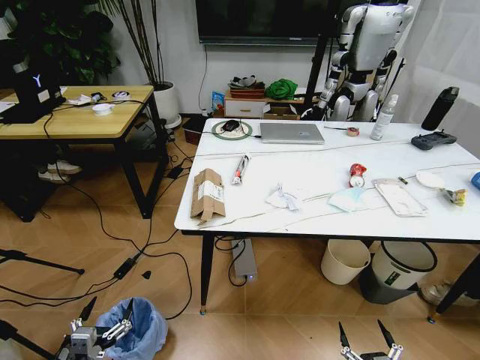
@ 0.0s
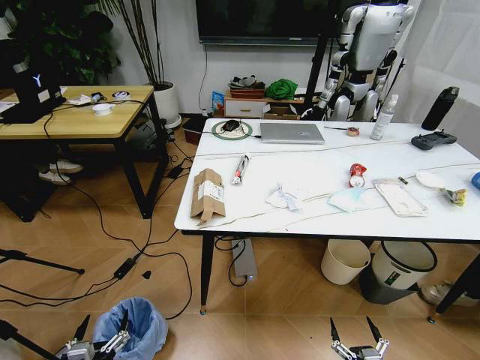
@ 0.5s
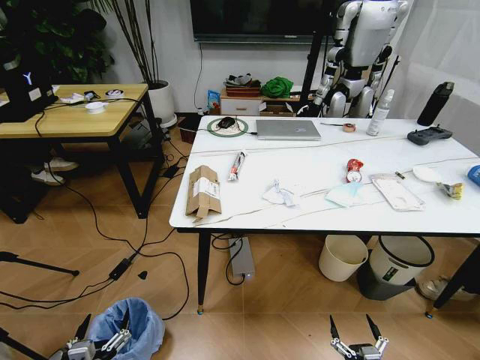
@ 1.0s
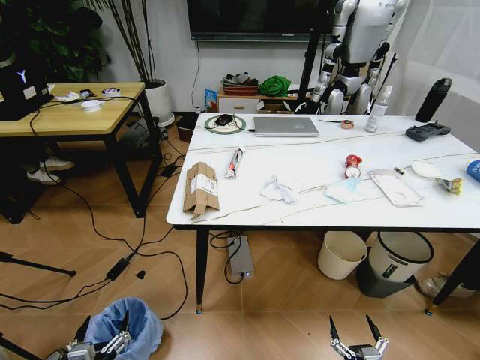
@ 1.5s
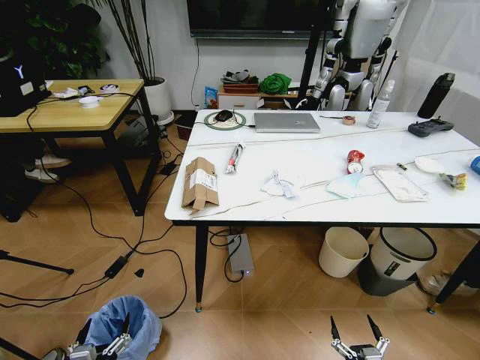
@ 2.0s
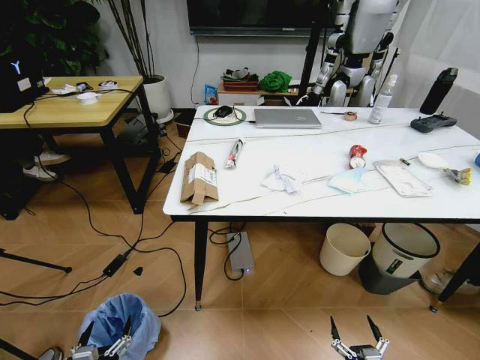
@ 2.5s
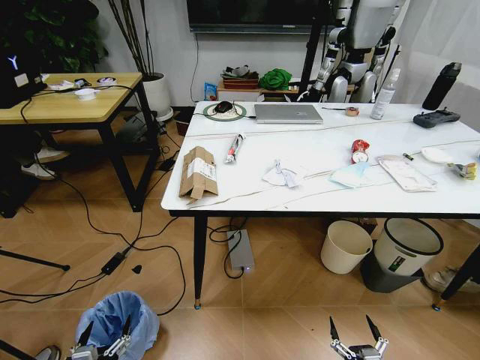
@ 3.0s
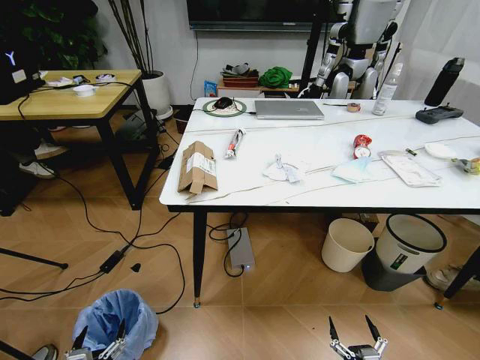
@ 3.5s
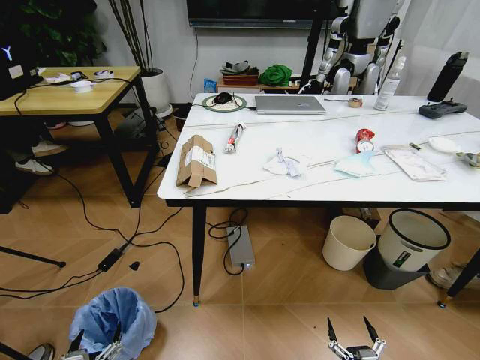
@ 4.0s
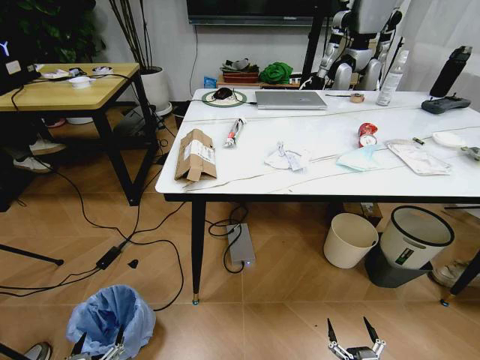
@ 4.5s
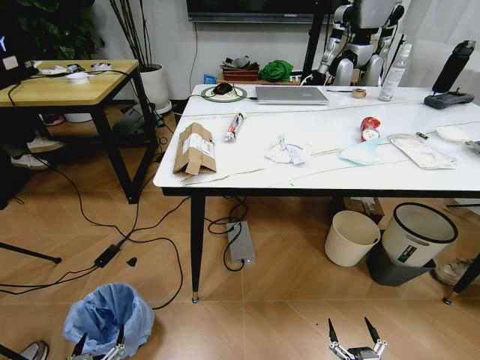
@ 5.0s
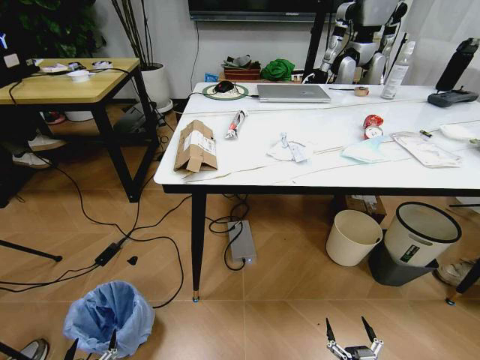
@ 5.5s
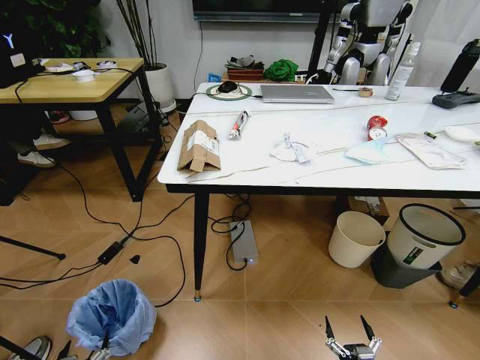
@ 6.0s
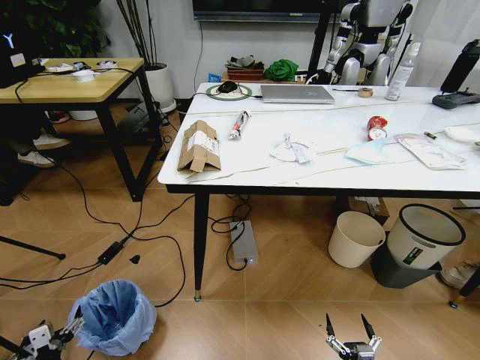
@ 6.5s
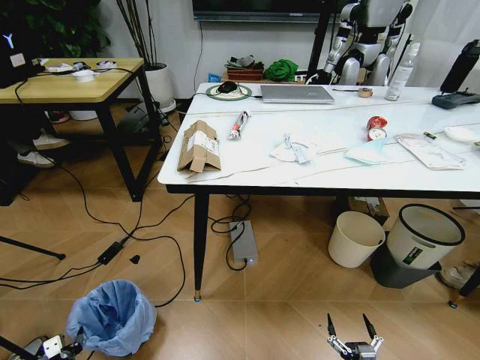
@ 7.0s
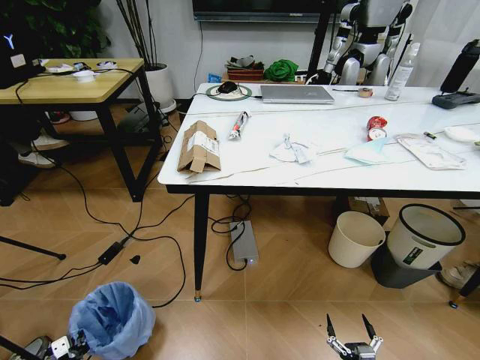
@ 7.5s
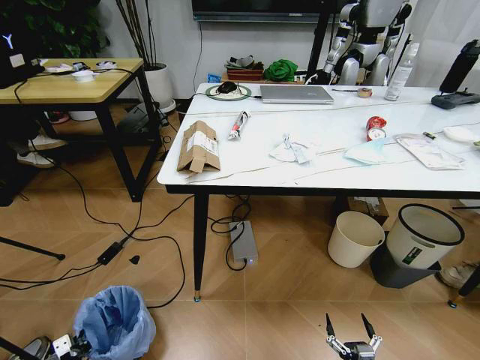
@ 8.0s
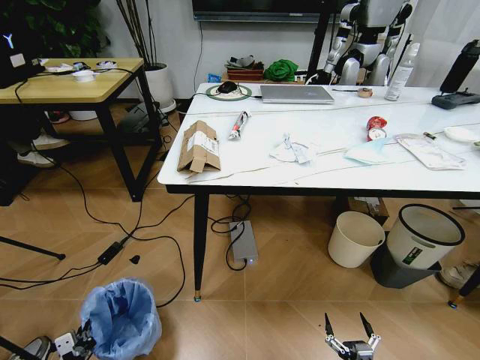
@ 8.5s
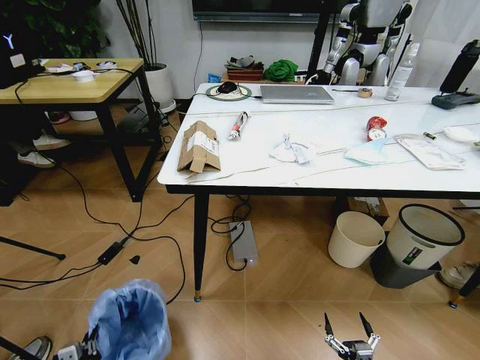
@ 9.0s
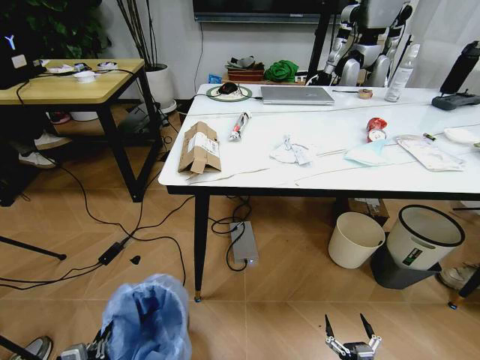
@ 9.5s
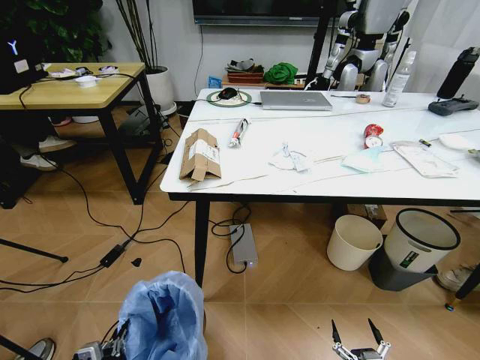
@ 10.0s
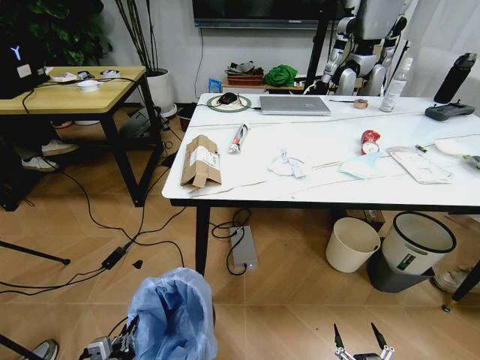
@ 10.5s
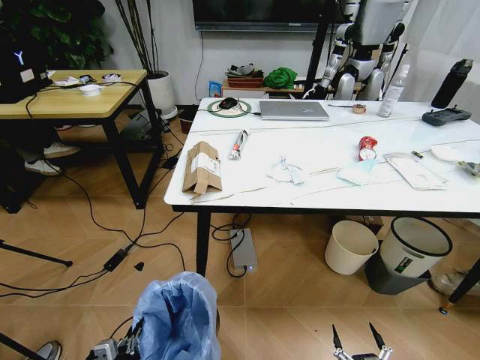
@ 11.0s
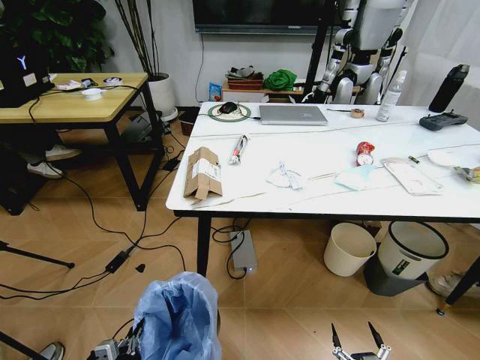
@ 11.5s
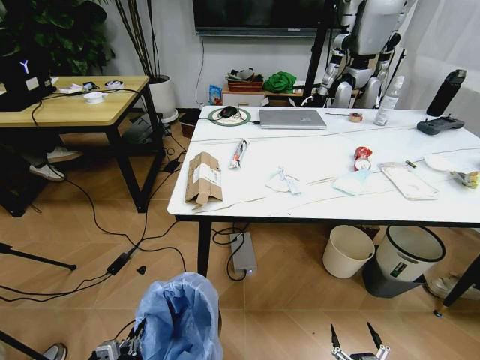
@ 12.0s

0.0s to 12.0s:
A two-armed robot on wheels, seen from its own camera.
Task of the whole recording: Pick up the trash bin and place the trash from the table into it.
6.0s to 8.0s: The left gripper goes some 15 cm forward, to the left and downward, and closes.
8.0s to 10.0s: The left gripper goes some 20 cm upward, to the right and backward.

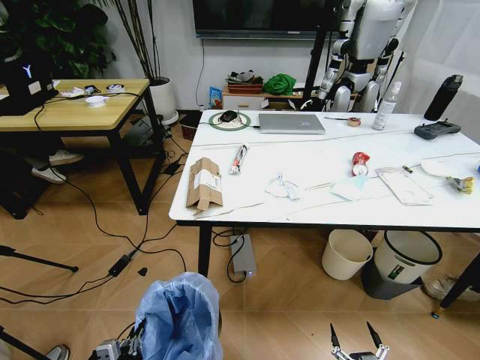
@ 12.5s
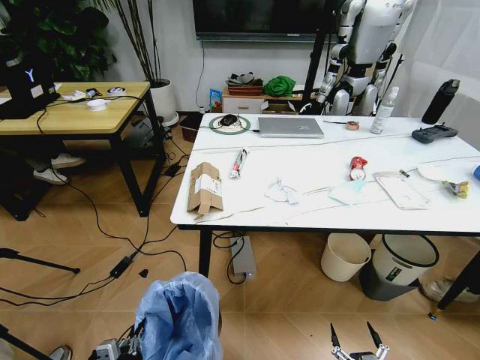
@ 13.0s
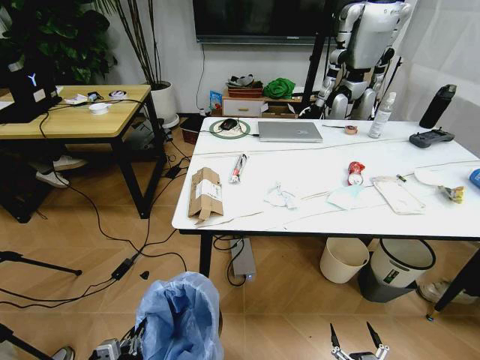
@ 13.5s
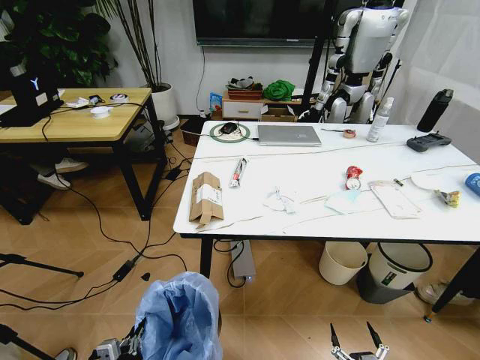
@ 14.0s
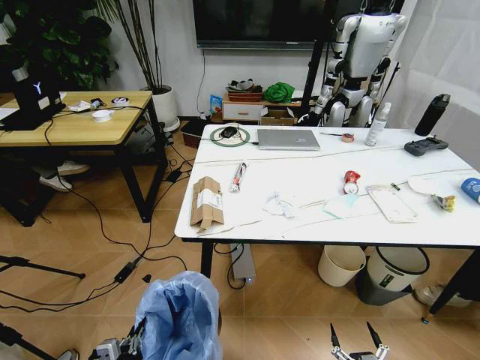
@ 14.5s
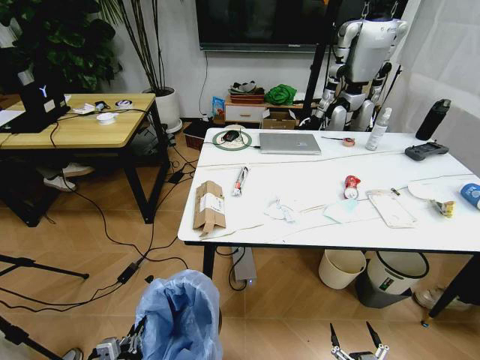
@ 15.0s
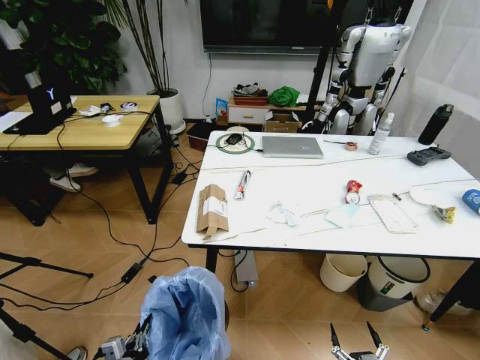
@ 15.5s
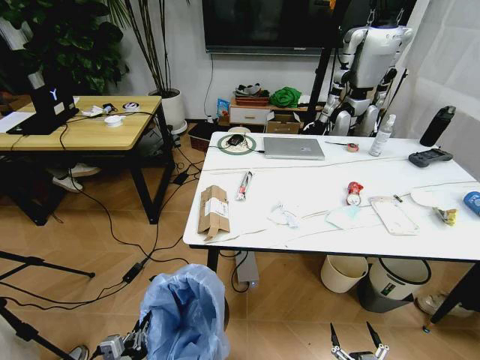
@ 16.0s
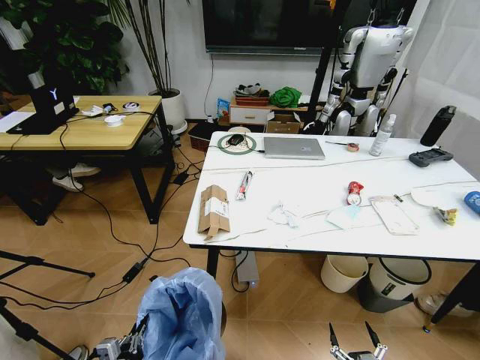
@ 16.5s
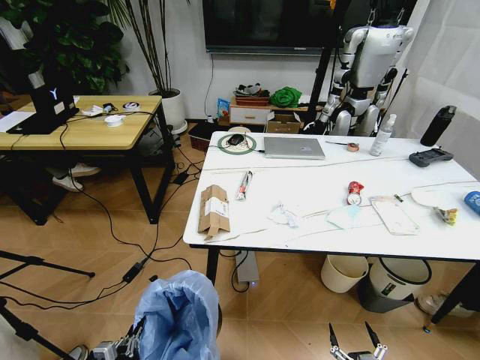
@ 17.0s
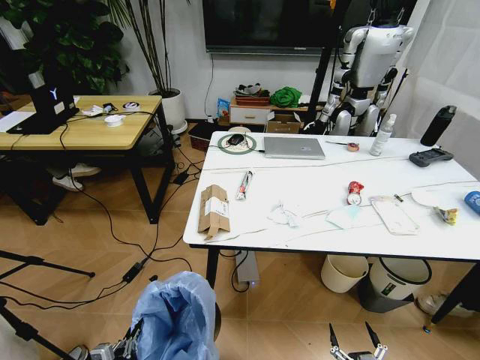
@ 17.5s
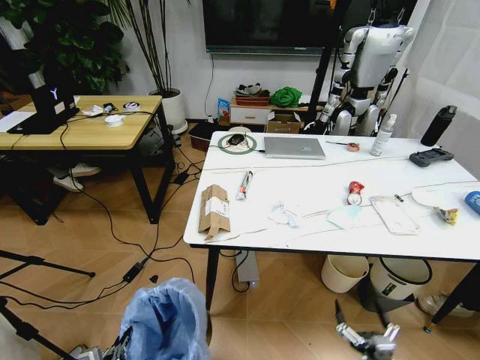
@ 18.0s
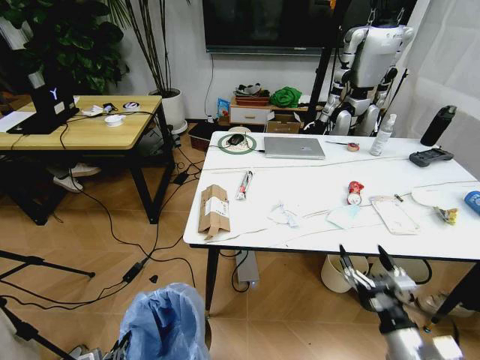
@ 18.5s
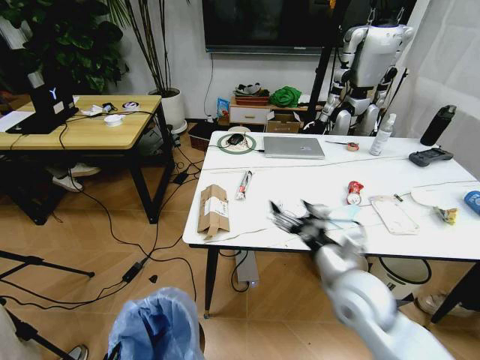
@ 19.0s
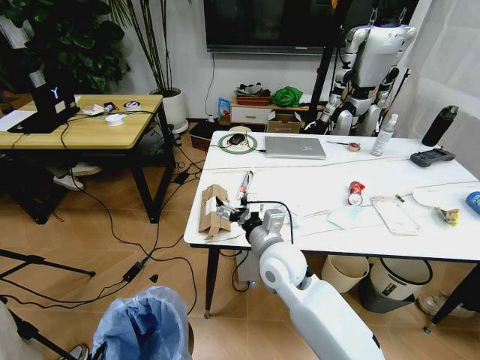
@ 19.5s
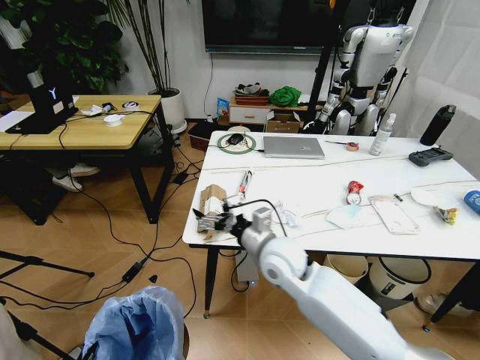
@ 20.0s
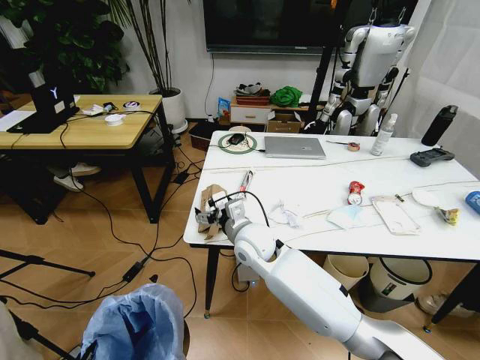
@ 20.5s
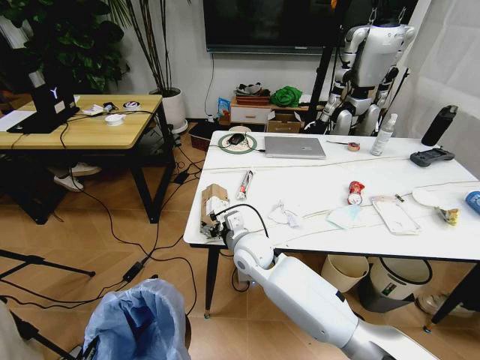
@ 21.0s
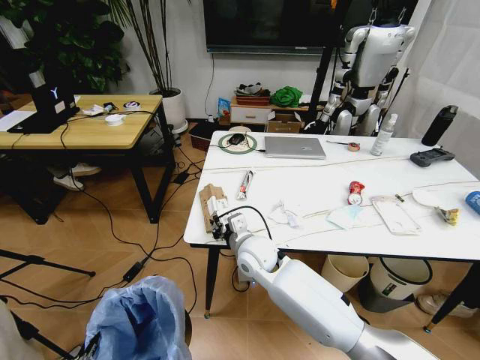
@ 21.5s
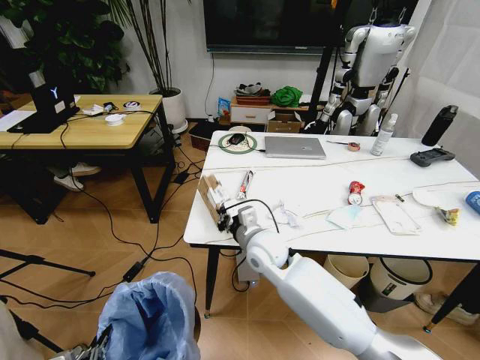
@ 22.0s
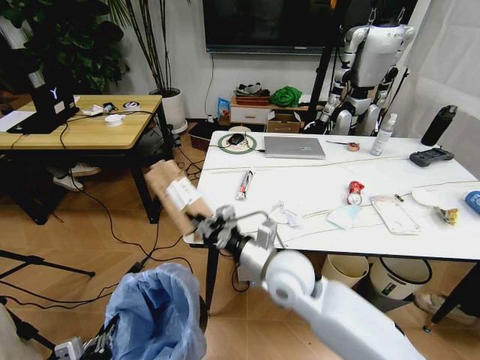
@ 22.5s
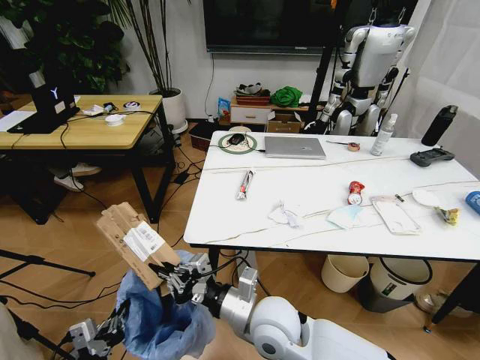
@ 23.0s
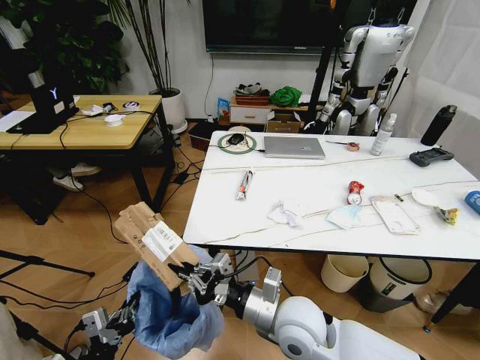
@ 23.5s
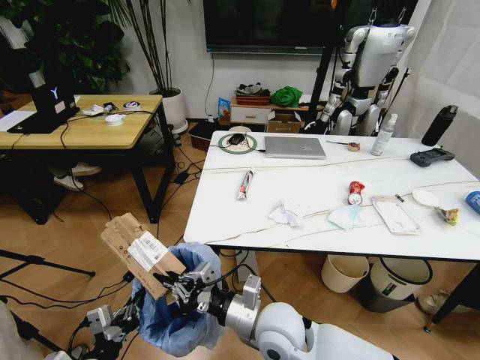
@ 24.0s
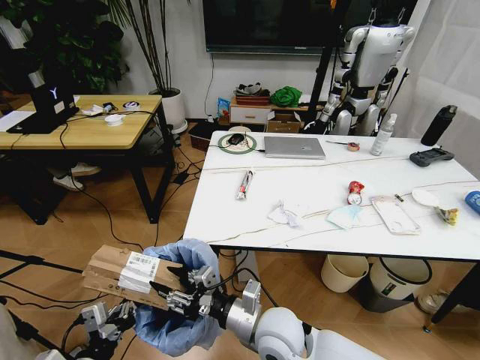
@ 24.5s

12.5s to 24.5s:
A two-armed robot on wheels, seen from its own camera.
Task of the whole recording: Pick up the trash bin and place the trash from the table into it.
16.5s to 18.5s: The right gripper moves upward and forward, about 25 cm.
18.5s to 20.5s: The right gripper moves to the left and forward, some 40 cm; the left gripper goes some 5 cm upward.
20.5s to 22.5s: The left gripper is displaced forward by some 5 cm. The right gripper shifts some 10 cm backward and to the right, and closes.
22.5s to 24.5s: The right gripper travels backward and downward by roughly 10 cm, and opens up. The left gripper travels forward by approximately 5 cm.

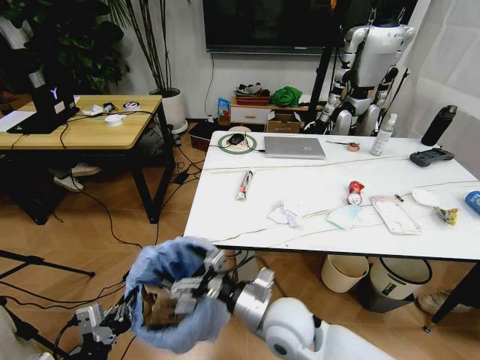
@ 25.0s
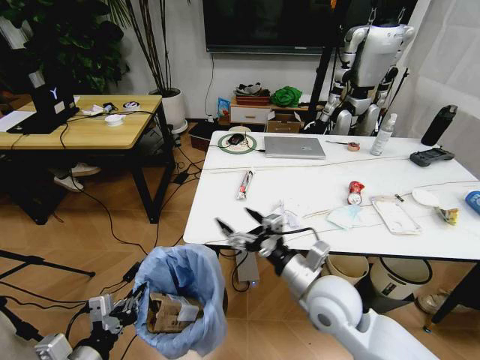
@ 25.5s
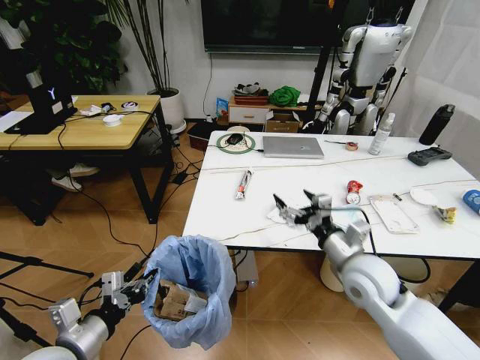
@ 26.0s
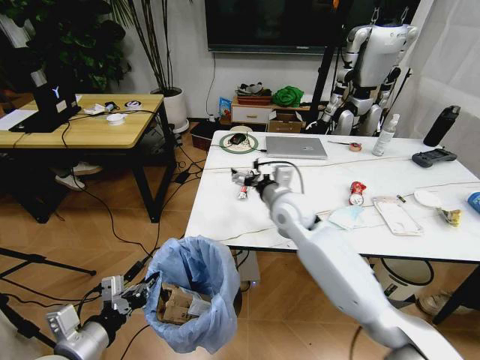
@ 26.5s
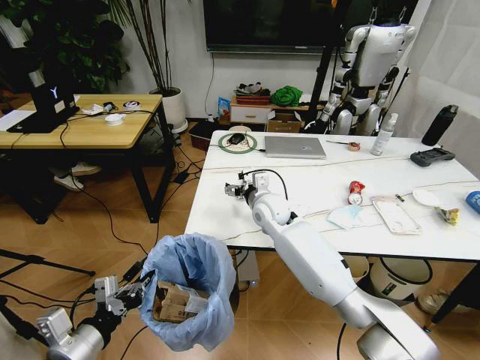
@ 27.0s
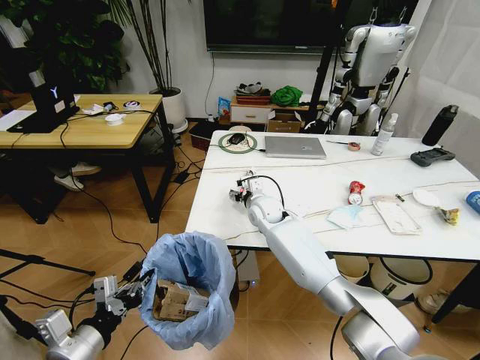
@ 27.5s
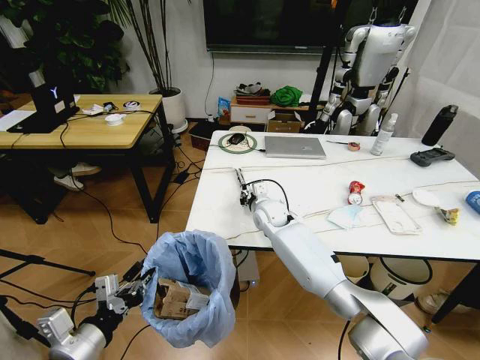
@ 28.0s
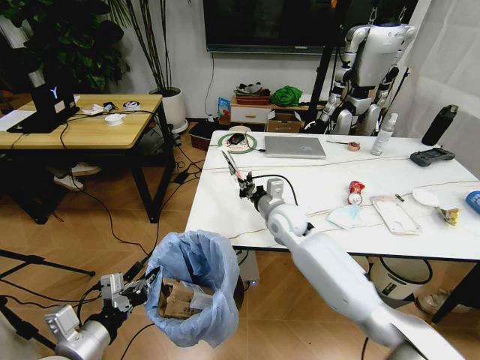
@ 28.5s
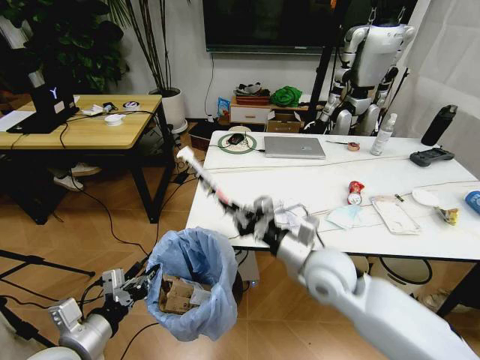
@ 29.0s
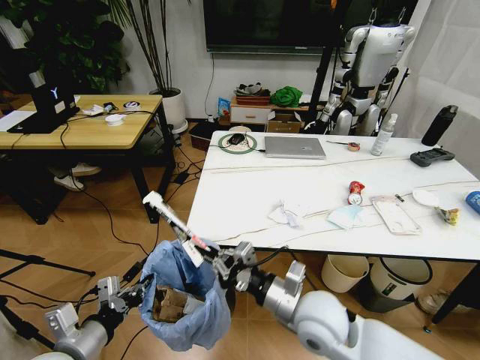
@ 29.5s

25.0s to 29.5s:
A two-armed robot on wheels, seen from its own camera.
Task of the whole recording: Pick up the trash bin and place the trash from the table into it.
25.0s to 27.0s: The right gripper moves forward, about 25 cm; the left gripper shifts approximately 5 cm forward.
27.0s to 29.5s: The right gripper goes some 25 cm backward, and closes its fingers.
